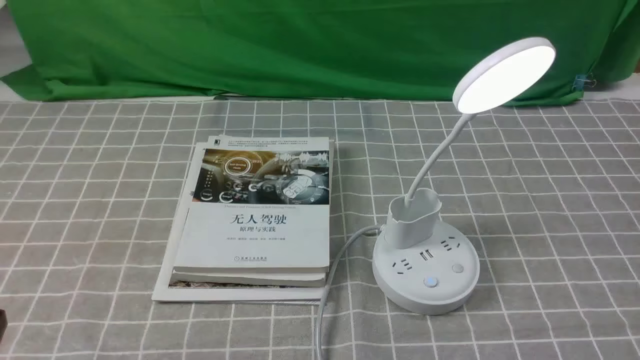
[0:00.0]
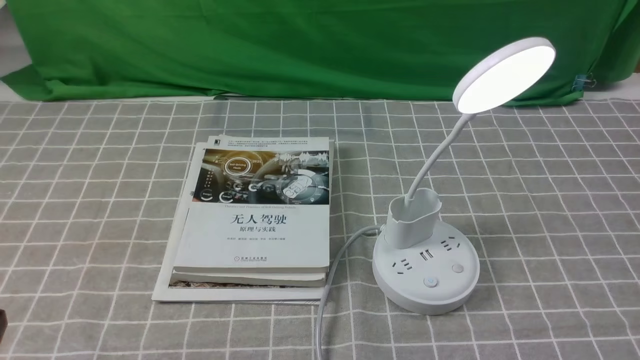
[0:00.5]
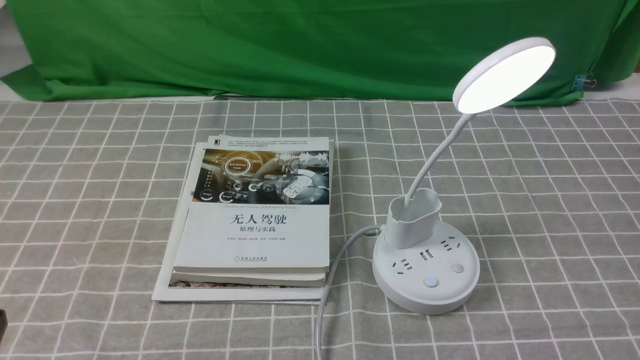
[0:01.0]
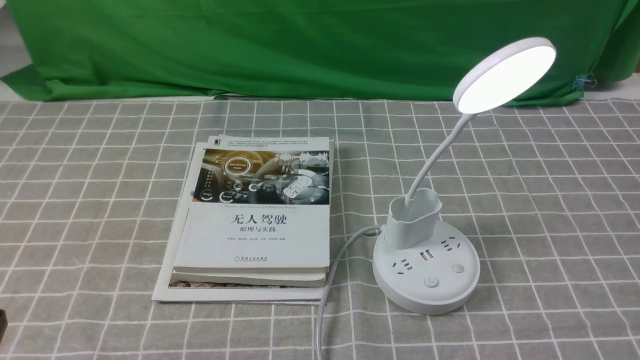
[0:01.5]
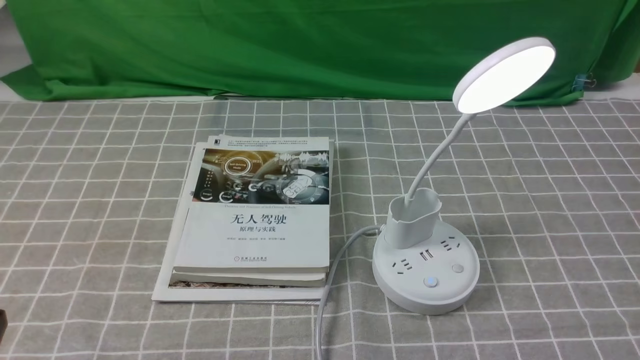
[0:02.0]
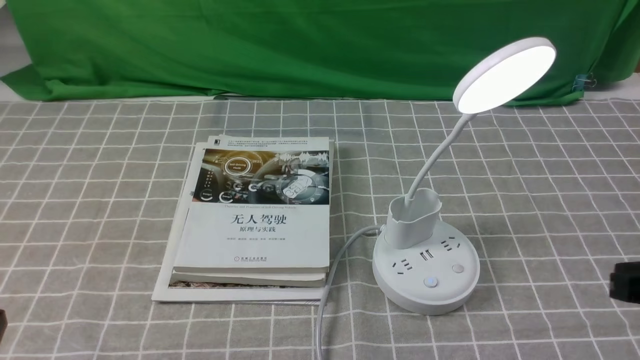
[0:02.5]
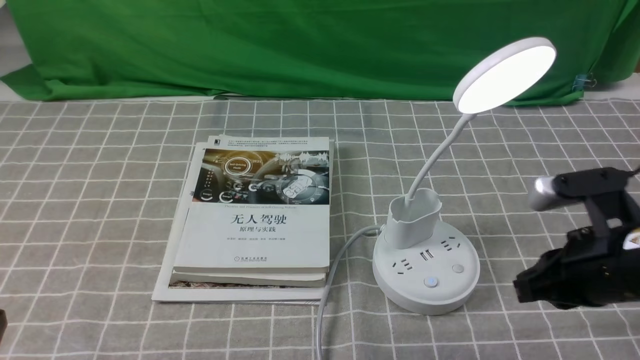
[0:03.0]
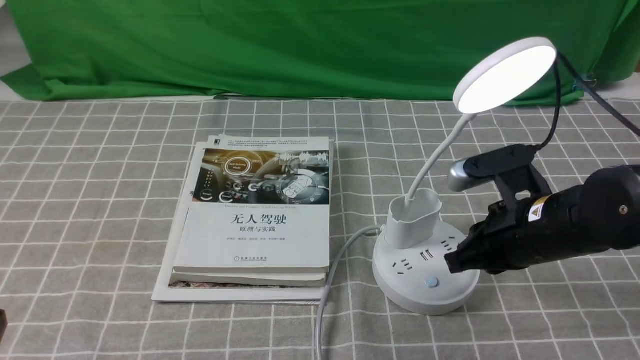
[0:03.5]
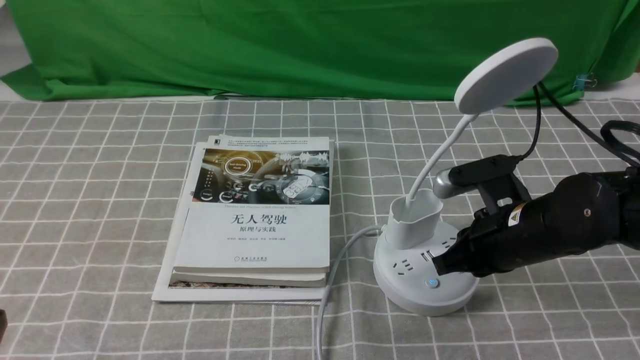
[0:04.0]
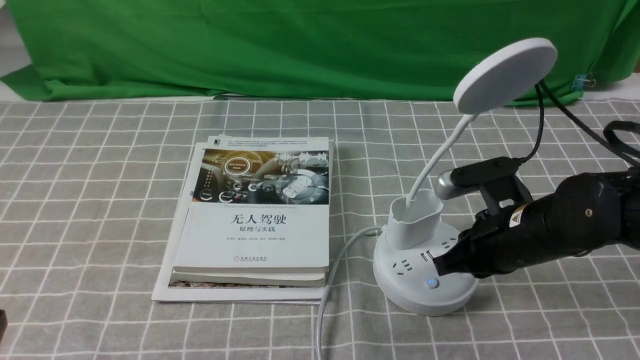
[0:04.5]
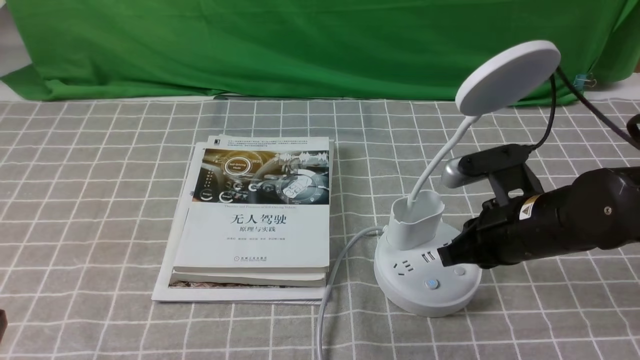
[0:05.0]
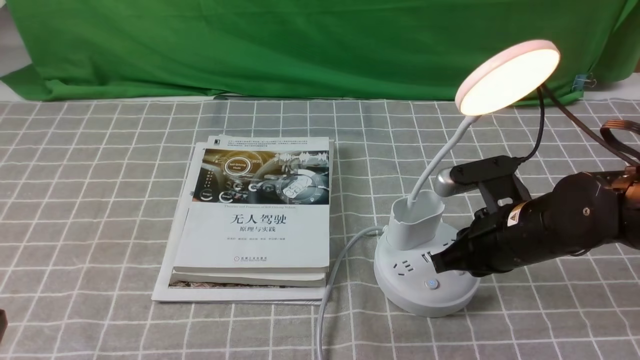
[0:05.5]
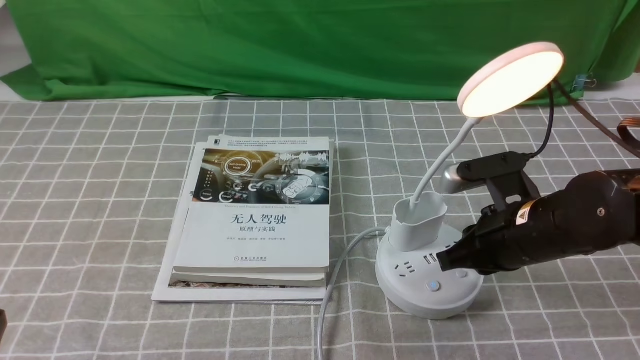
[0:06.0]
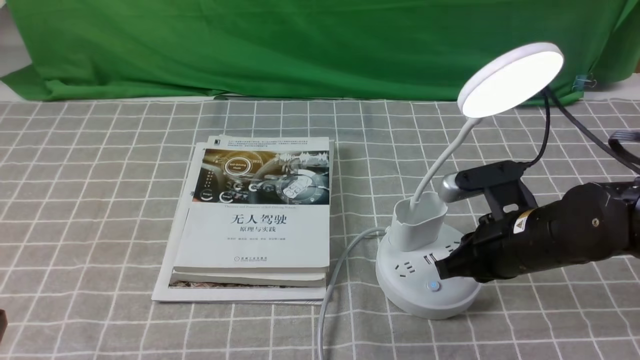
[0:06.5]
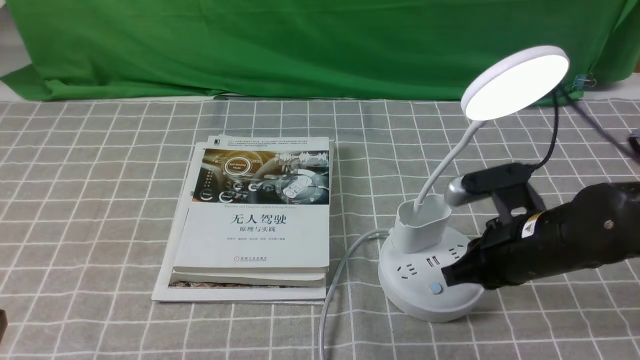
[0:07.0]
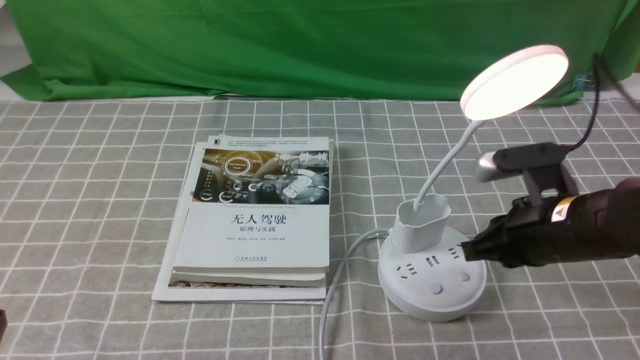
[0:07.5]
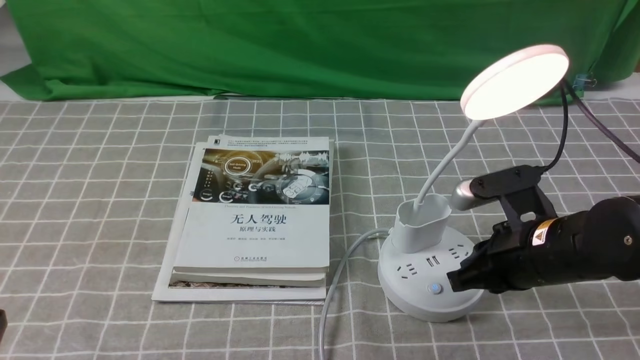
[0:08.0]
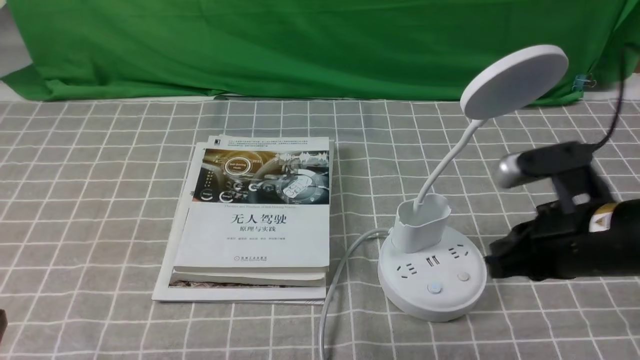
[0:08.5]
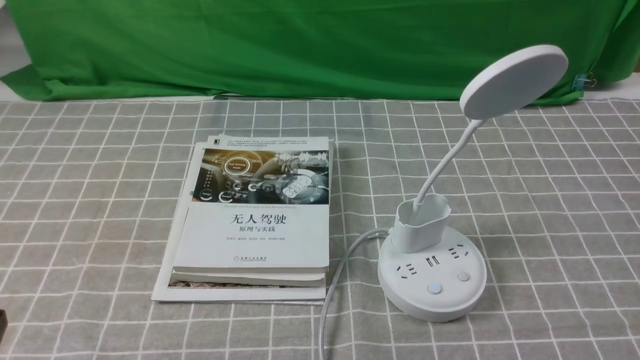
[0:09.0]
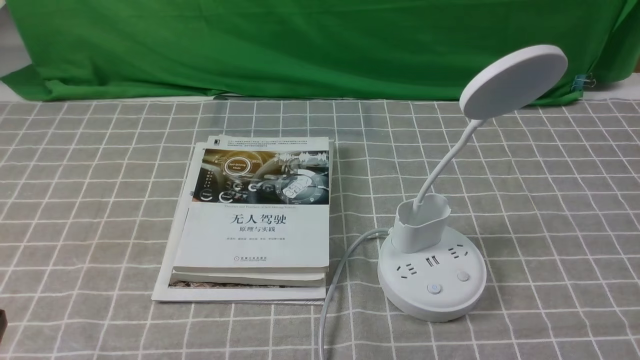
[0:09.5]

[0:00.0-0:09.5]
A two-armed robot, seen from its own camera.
Task of the whole recording: turn off the desk lamp on the grey coffee tablecloth by hand.
Step, 0:00.0 to 0:08.0: use the right arm to press the button switch on the lamp holder.
0:02.0 to 0:04.0: The right gripper travels forward, to the left and downward by roughly 25 cm, and closes and opens again.
0:04.0 to 0:05.5: Both grippers stay put.
0:05.5 to 0:07.5: The right gripper closes its fingers.
0:07.5 to 0:09.5: The right gripper goes roughly 20 cm backward and to the right.

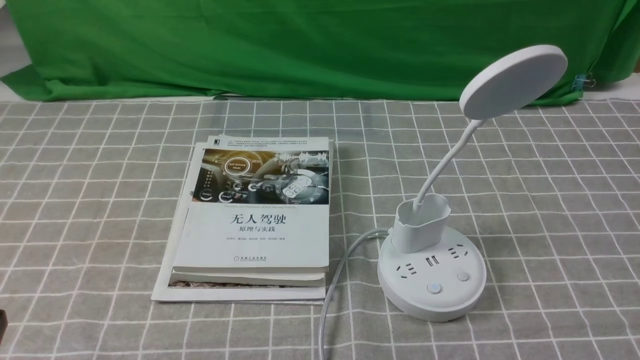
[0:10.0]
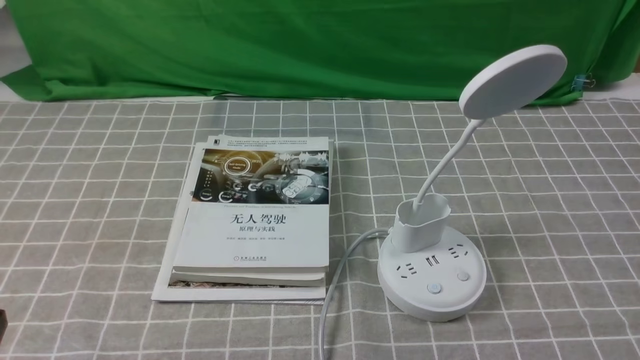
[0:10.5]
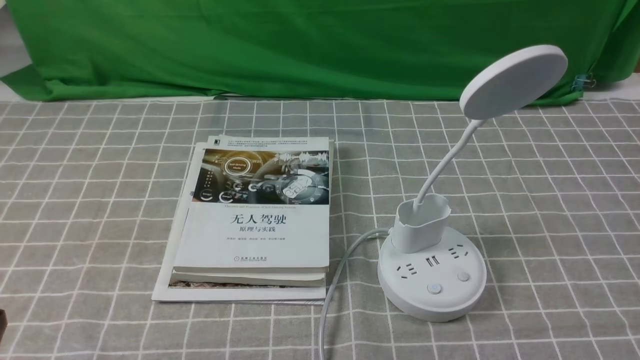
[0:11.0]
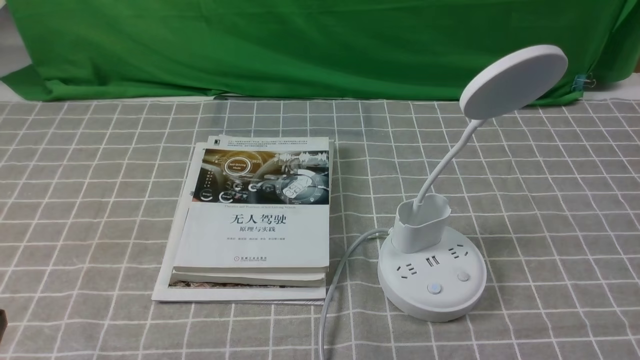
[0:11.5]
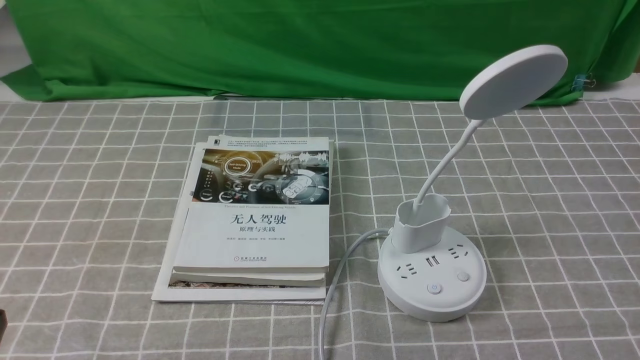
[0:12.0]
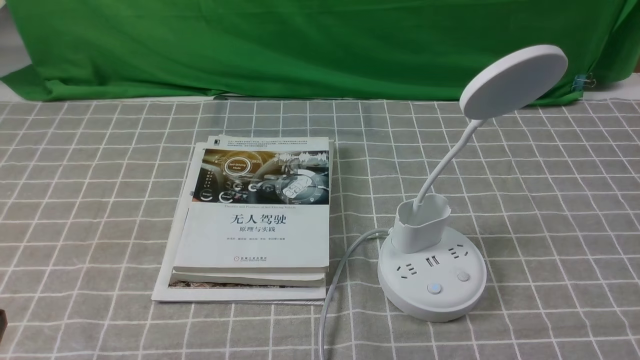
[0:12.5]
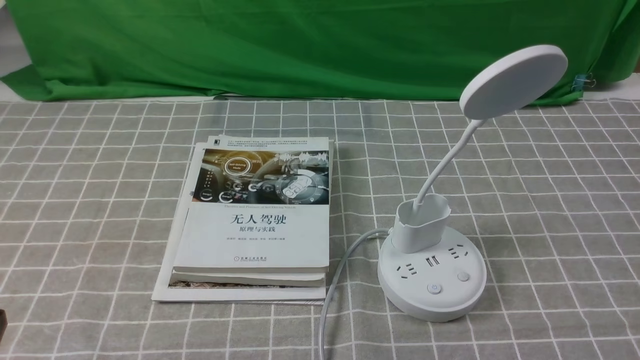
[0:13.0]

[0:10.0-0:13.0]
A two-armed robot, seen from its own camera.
Task of the whole recording: turn off the desk lamp on the grey coffee tablecloth by hand.
0:11.5 to 0:13.0: The two grippers keep their place.
